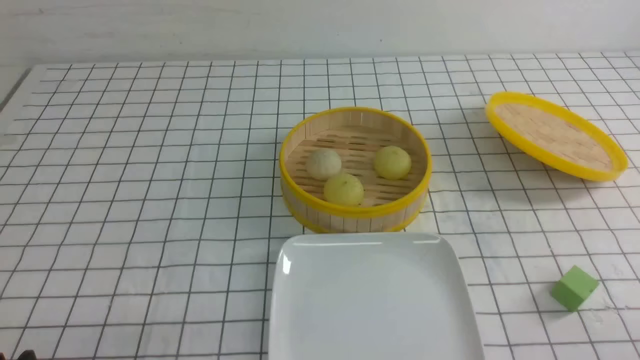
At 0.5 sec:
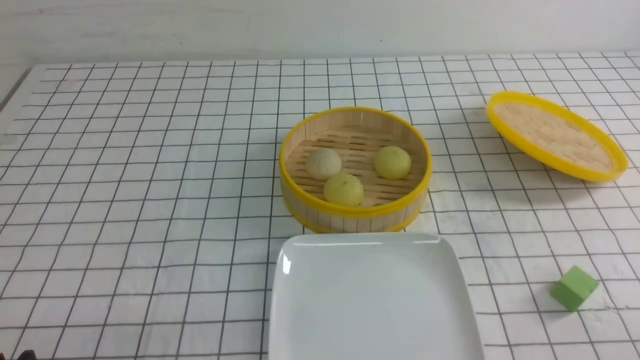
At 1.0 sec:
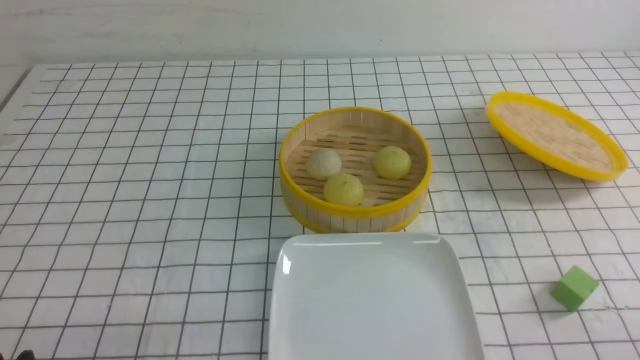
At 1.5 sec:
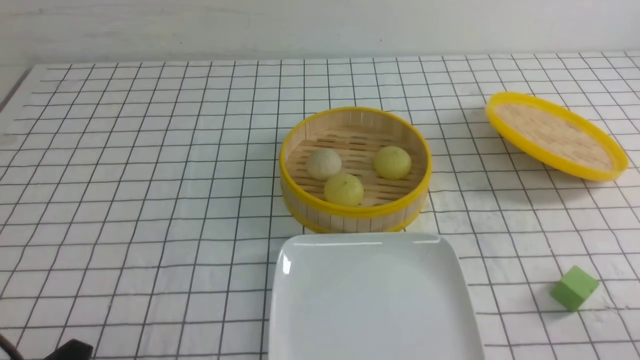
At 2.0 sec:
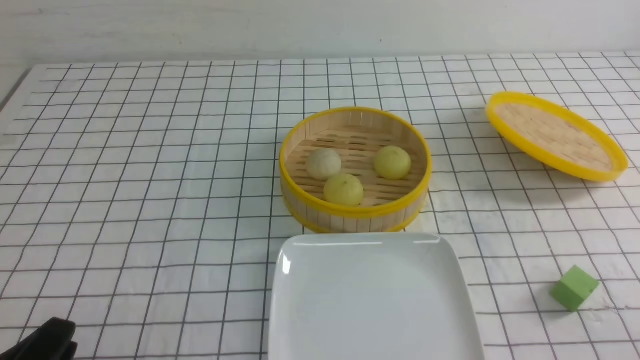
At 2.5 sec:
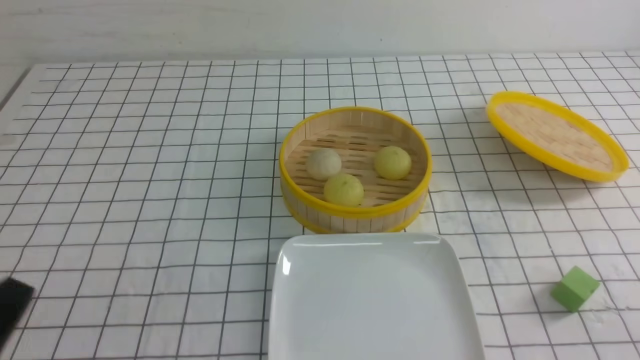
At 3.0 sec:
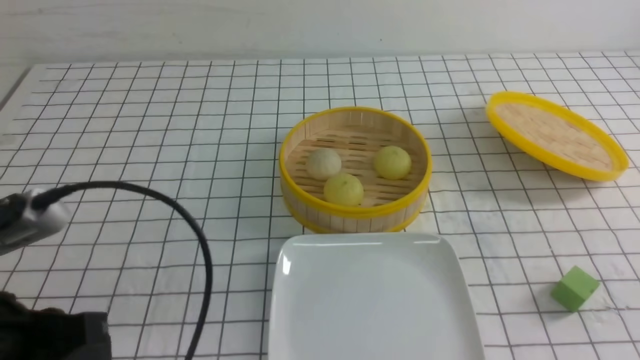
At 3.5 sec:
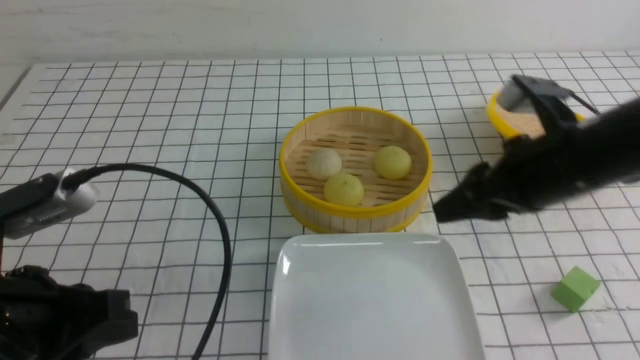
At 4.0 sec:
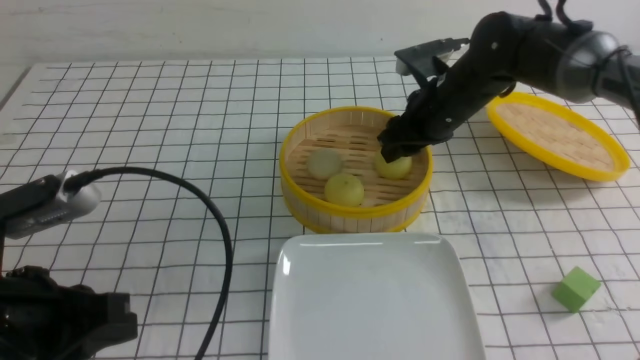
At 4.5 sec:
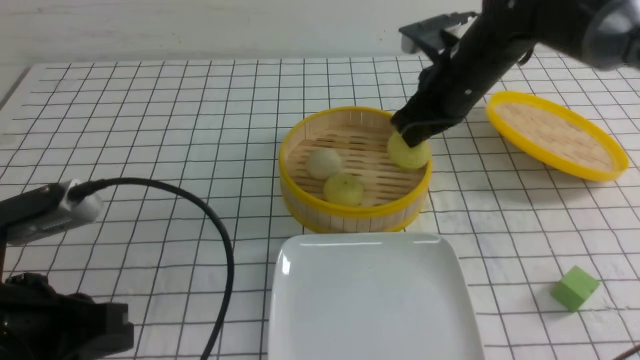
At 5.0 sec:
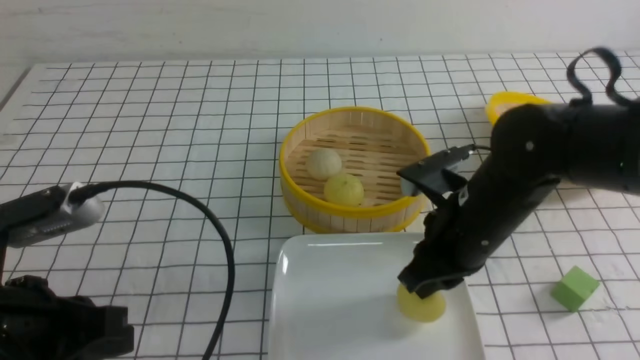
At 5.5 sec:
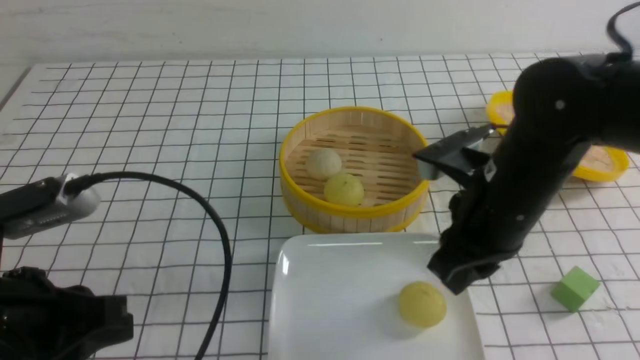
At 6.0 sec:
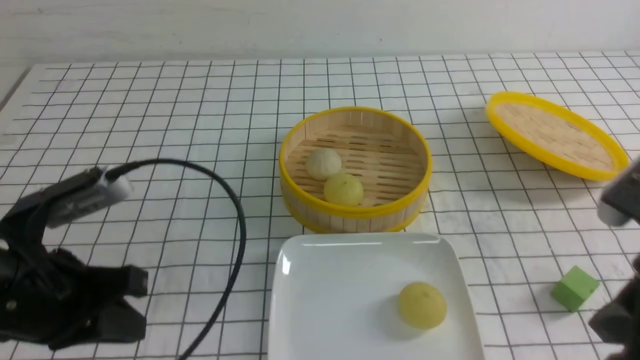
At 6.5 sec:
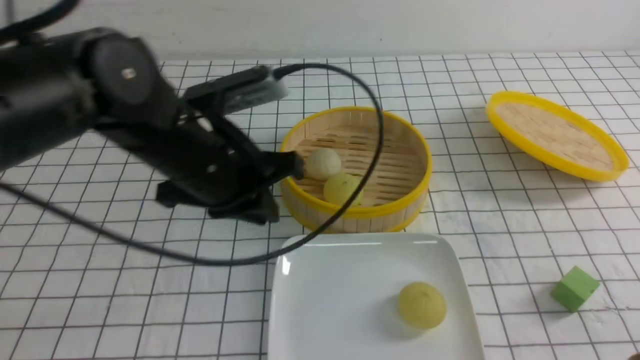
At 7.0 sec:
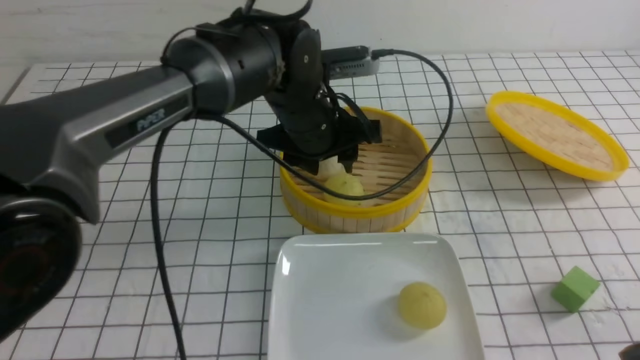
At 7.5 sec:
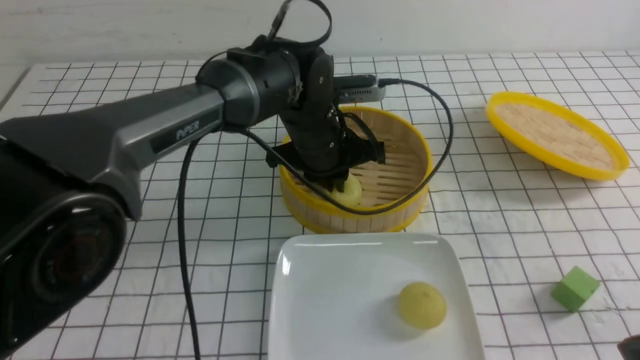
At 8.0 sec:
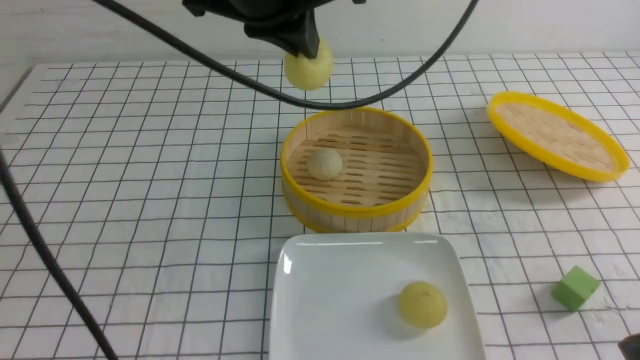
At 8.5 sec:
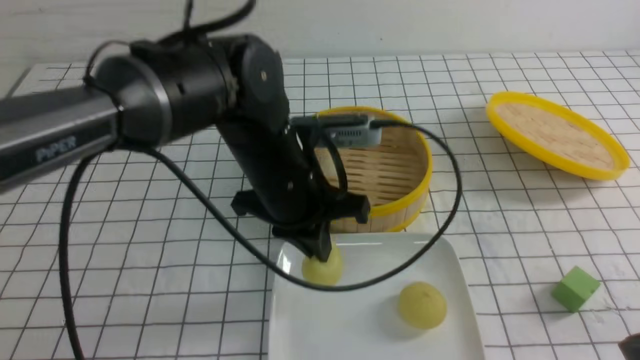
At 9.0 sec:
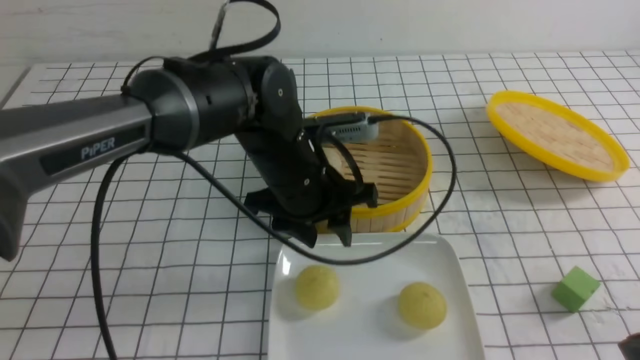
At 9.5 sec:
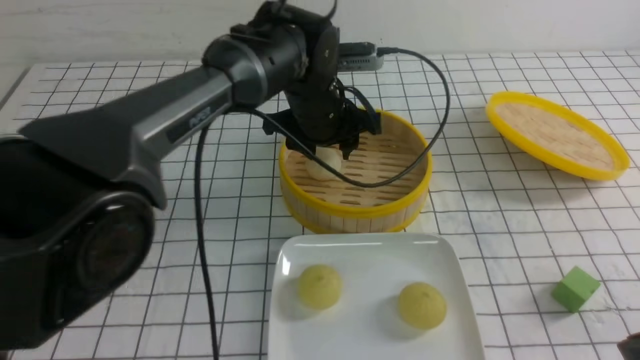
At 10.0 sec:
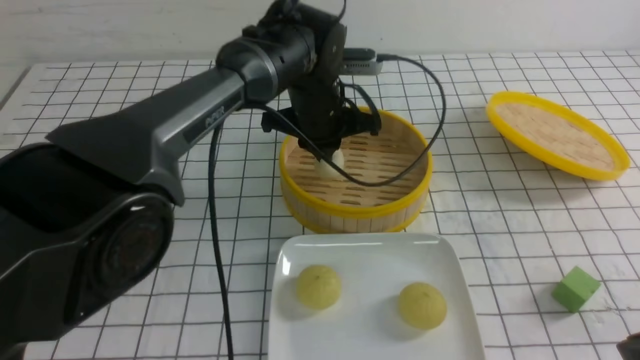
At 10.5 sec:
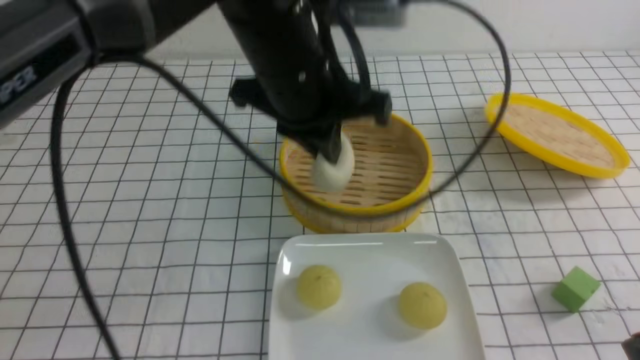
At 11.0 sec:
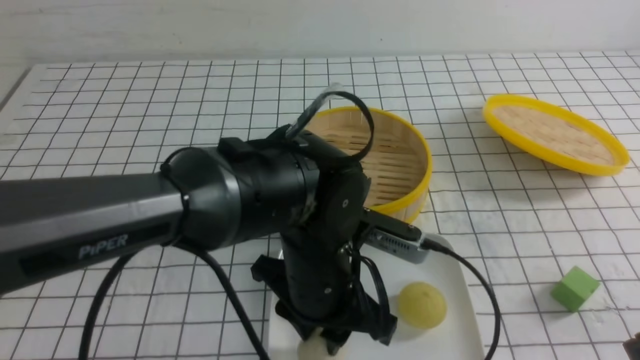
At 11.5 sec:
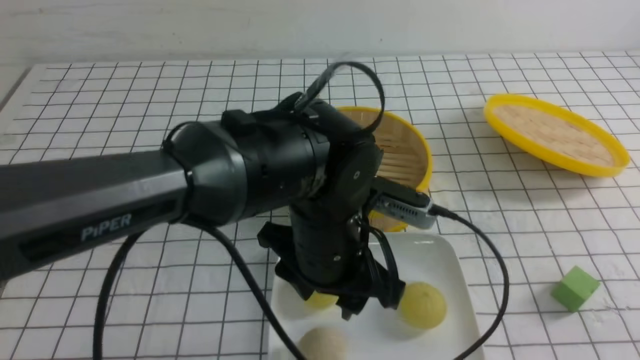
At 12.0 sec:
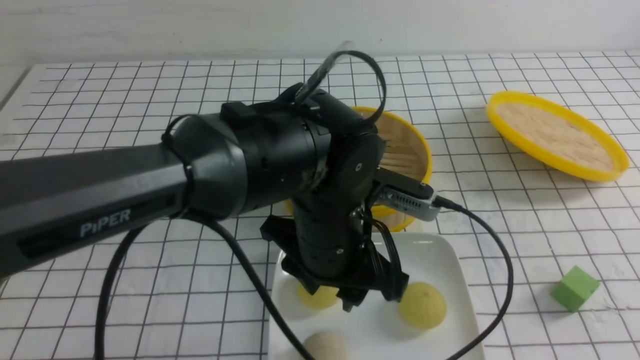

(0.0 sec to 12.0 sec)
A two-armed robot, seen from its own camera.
Step, 0.0 sec - 4.0 sec: use the right arm to grab the steamed stuffed bun that is closest to it.
Step, 4.5 sec - 5.0 sec: use the right arm to put the steamed stuffed bun into the plate.
Step, 5.5 sec - 7.0 sec: use the left arm to grab the steamed stuffed bun that is closest to it.
Step, 7.5 sec - 8.5 sec: use the left arm to put the steamed stuffed bun into the plate.
Step, 9.0 sec - 9.5 sec: use the left arm to grab the steamed stuffed bun that is closest to it.
Step, 10.0 sec - 11.0 sec: use the left arm to put the steamed stuffed bun into the plate.
2.0 sec - 4.0 sec: The right gripper shifts about 40 cm forward and to the left, and closes, then opens again; the left gripper moves upward and forward, about 10 cm, and closes up.
4.0 sec - 6.0 sec: The right gripper heads backward, covering approximately 30 cm, and closes up.
6.0 sec - 8.0 sec: The left gripper moves to the right, forward and upward, some 25 cm, and opens and closes again; the right gripper shifts by roughly 5 cm.
8.0 sec - 10.0 sec: The left gripper is displaced downward and forward by about 15 cm, and opens, then closes again.
10.0 sec - 12.0 sec: The left gripper heads backward, covering about 20 cm, and opens its fingers. The right gripper goes about 10 cm backward and upward.

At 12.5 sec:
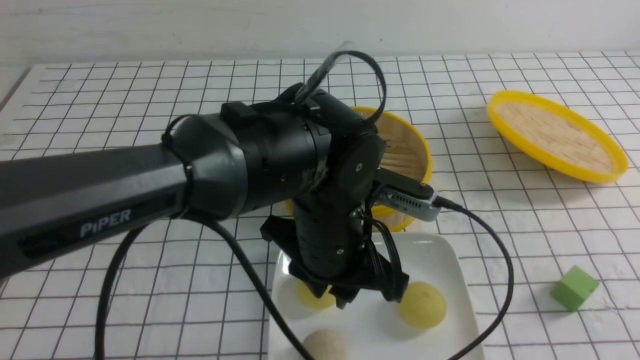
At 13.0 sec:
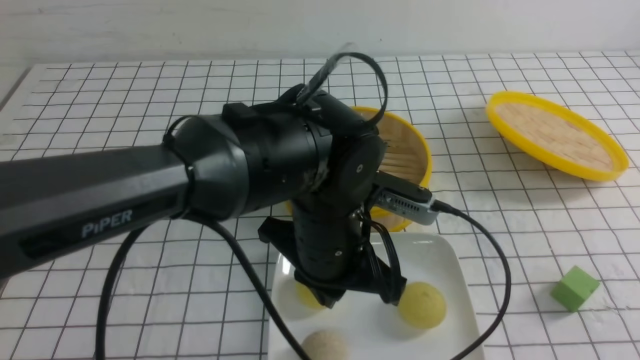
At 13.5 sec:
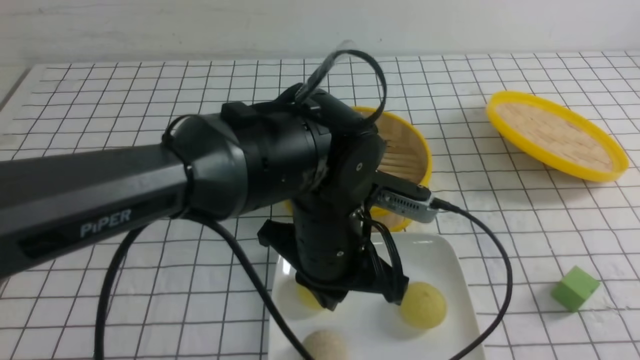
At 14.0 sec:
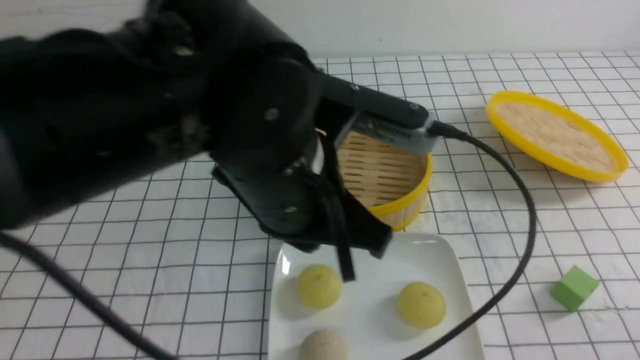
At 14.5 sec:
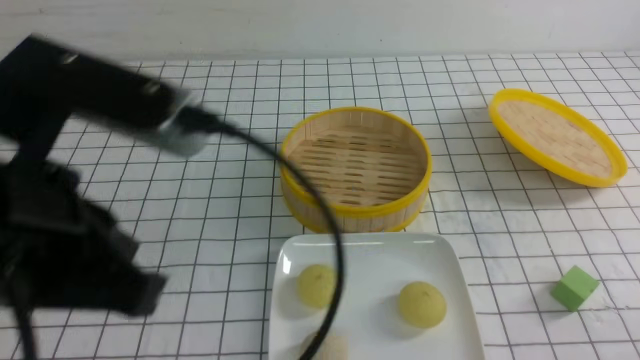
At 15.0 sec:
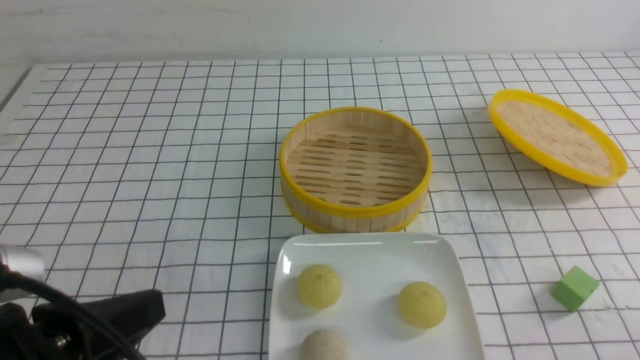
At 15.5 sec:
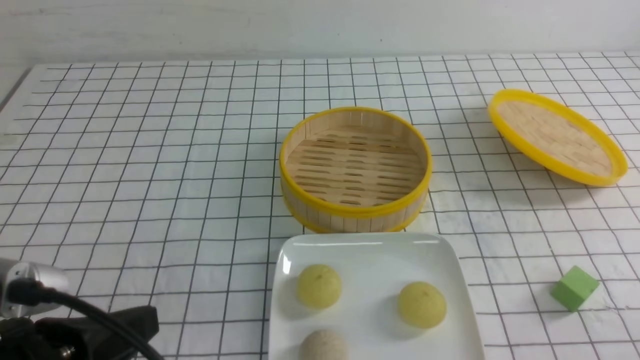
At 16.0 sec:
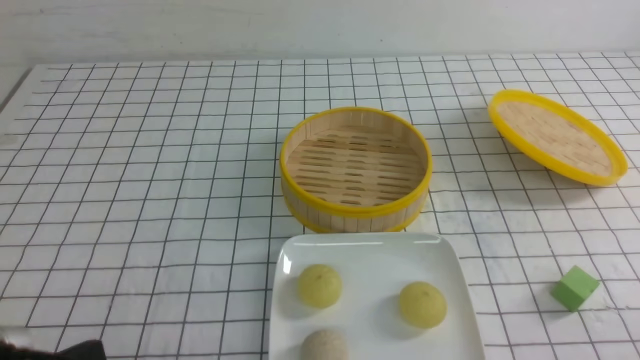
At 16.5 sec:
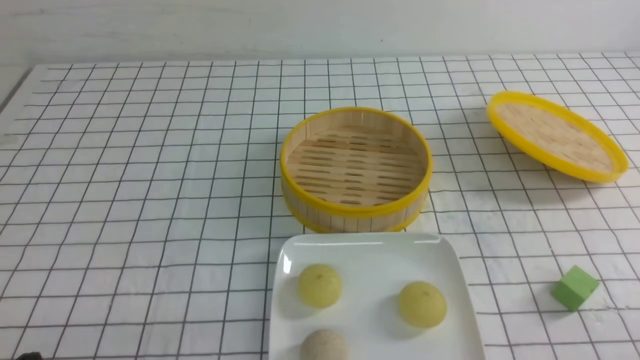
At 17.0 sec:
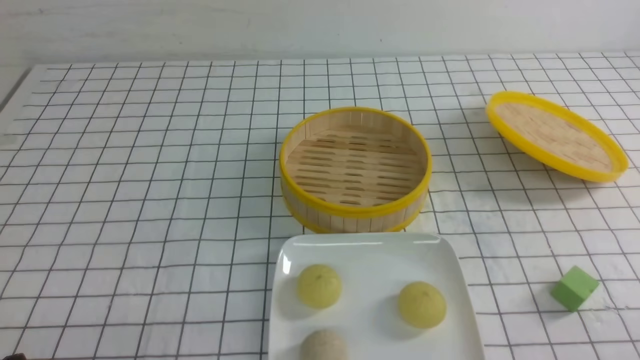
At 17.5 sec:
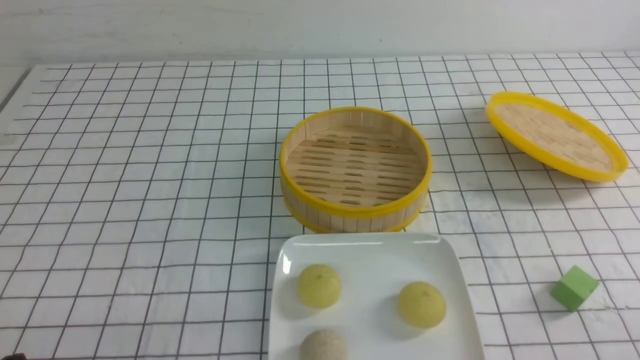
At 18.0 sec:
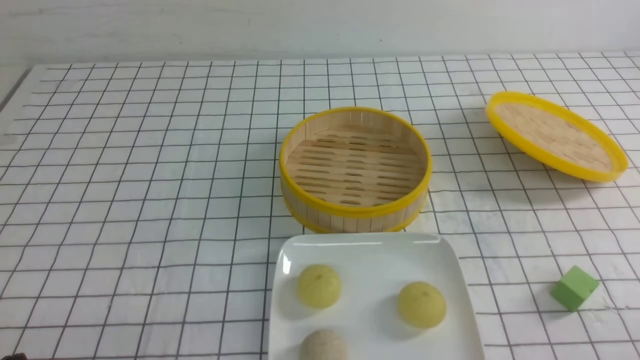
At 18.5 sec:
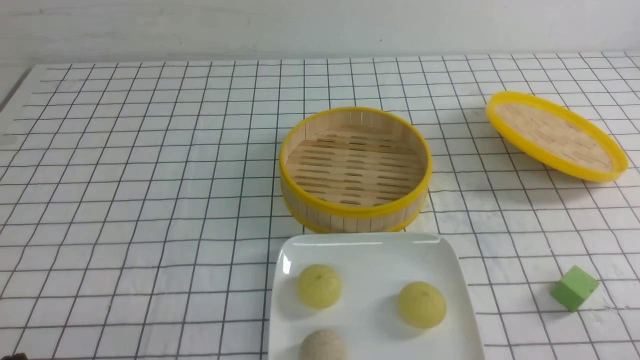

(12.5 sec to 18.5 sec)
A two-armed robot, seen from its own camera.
12.5 sec - 14.5 sec: The left gripper shifts about 25 cm to the left, upward and backward, and closes up. The right gripper moves downward, some 15 cm.
14.5 sec - 16.5 sec: The left gripper heads downward and to the left, covering approximately 25 cm.
16.5 sec - 18.5 sec: The two grippers keep their place.
